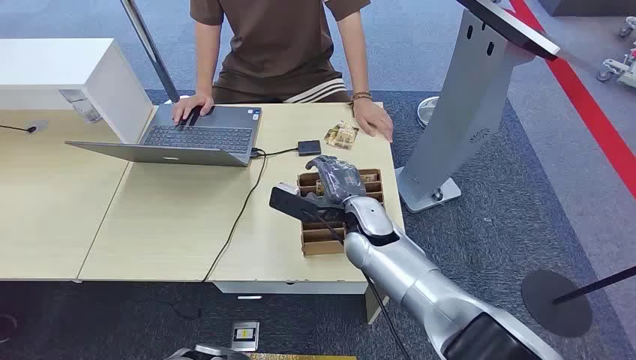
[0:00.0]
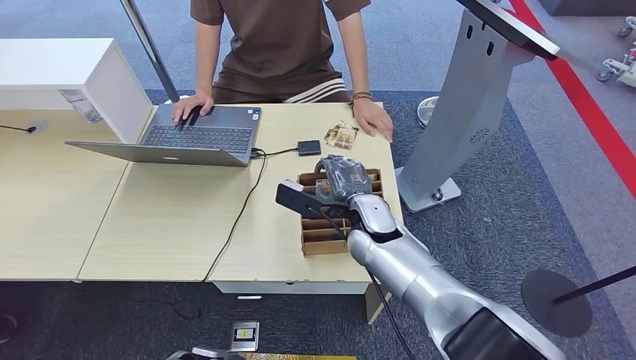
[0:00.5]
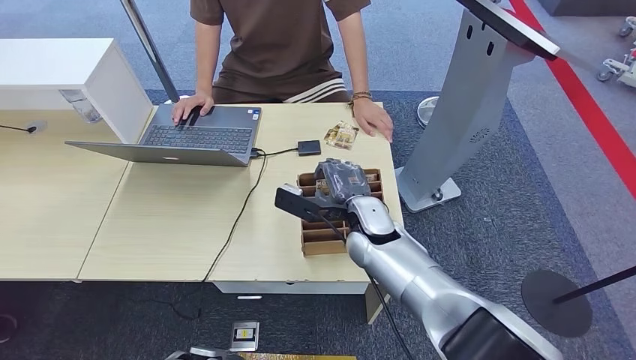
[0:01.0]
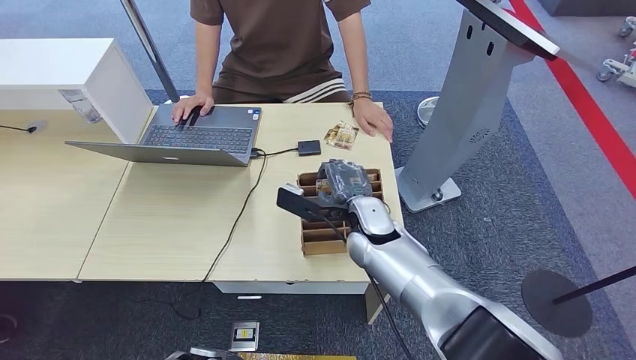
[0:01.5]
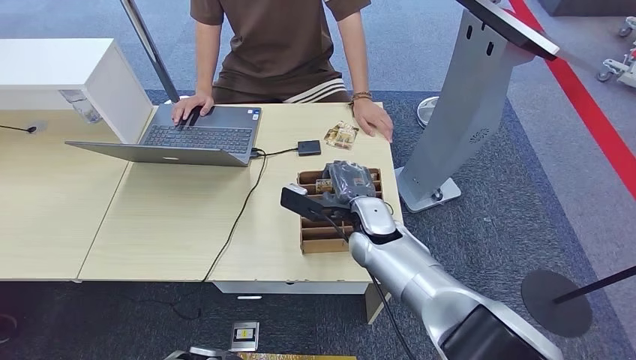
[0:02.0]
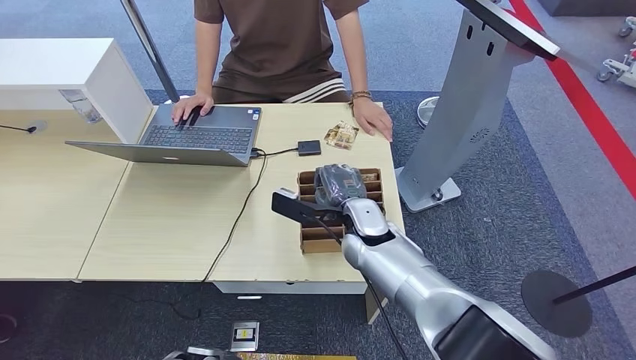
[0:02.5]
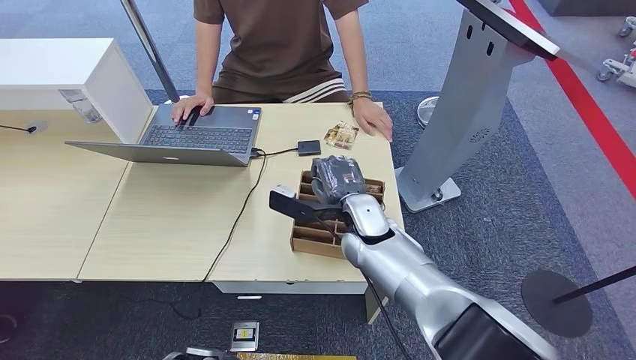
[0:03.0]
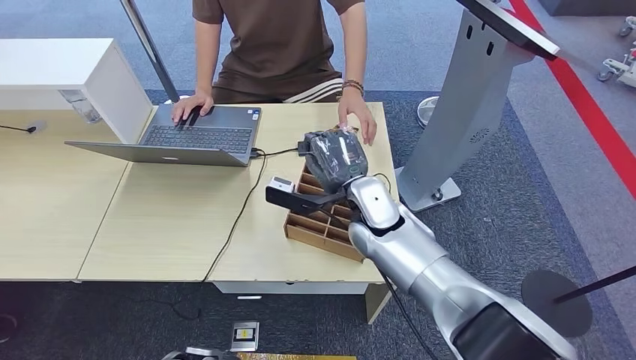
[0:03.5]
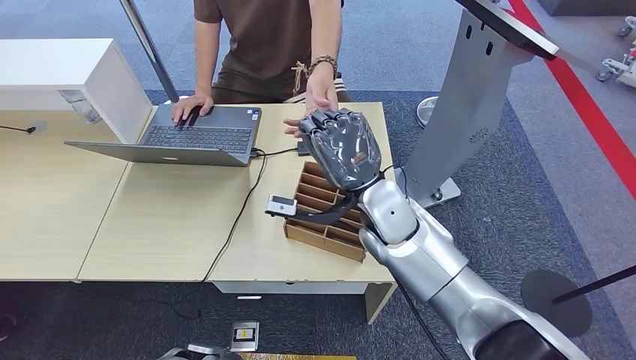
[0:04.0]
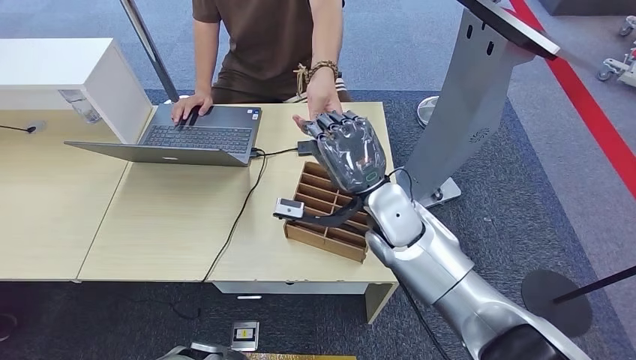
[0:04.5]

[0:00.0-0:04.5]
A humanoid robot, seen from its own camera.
Task of the whole recording: Pick up the card and hand it over to the target person.
Step, 0:00.0 to 0:03.0: Pick up the key card from the card box.
Step, 0:03.5 to 0:04.5: Hand the key card to the target.
0:02.0 to 0:04.5: The right hand heads upward, covering approximately 5 cm.

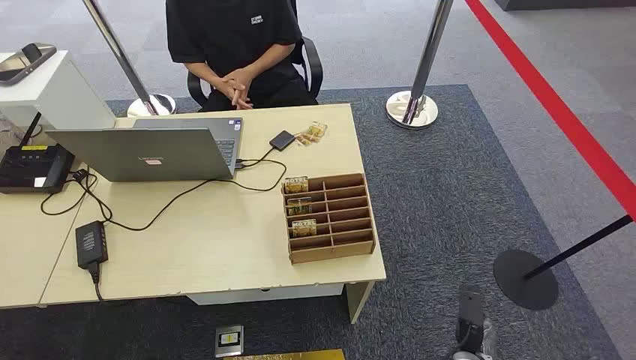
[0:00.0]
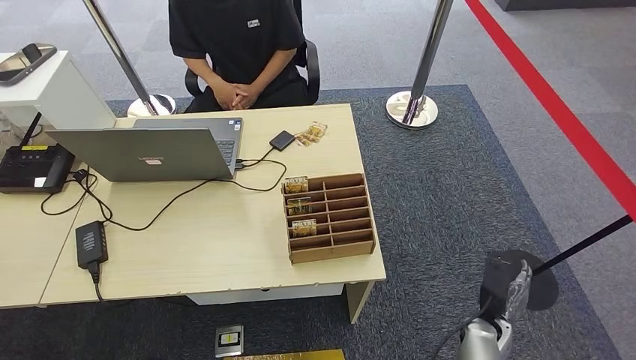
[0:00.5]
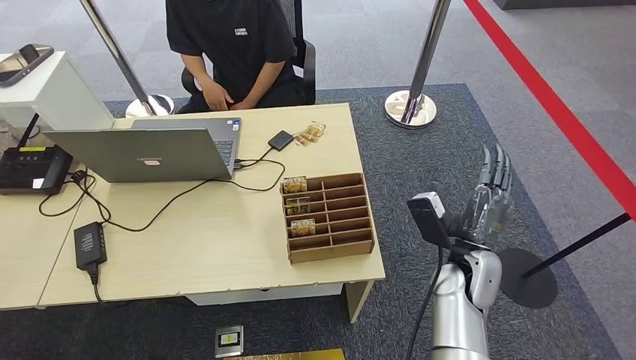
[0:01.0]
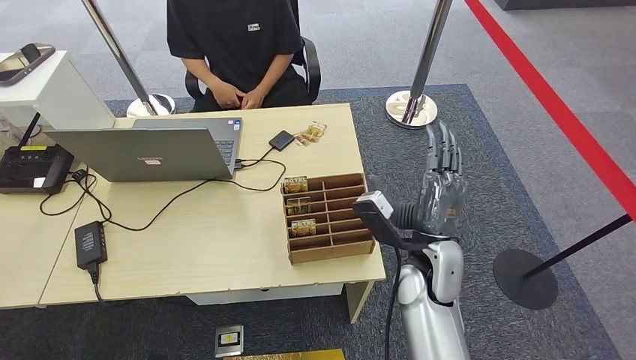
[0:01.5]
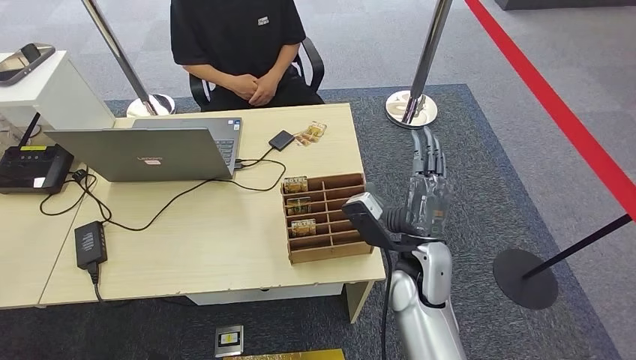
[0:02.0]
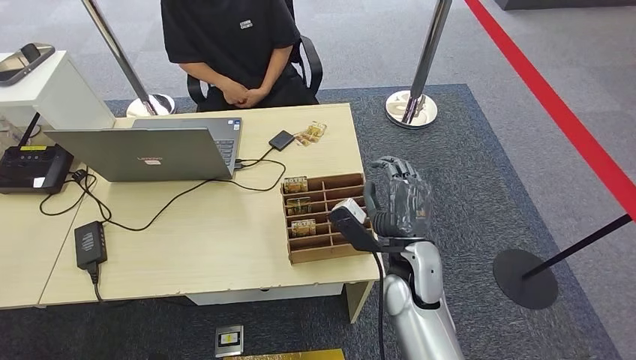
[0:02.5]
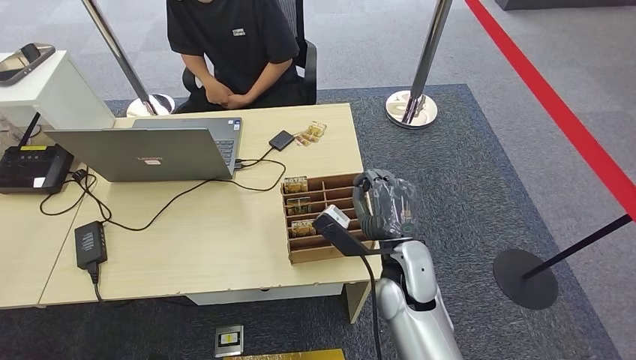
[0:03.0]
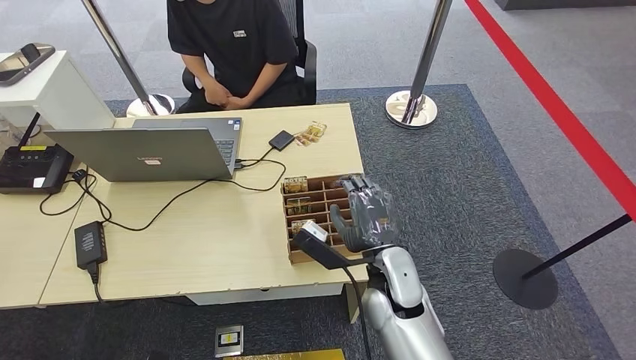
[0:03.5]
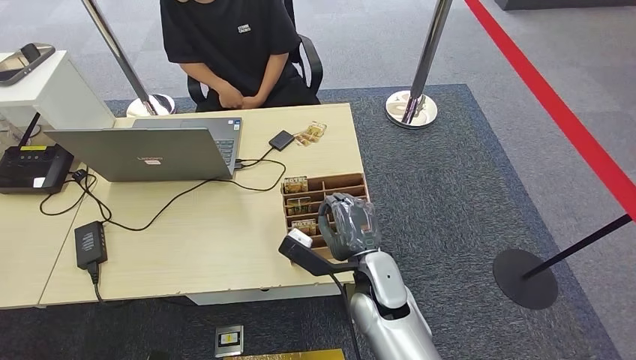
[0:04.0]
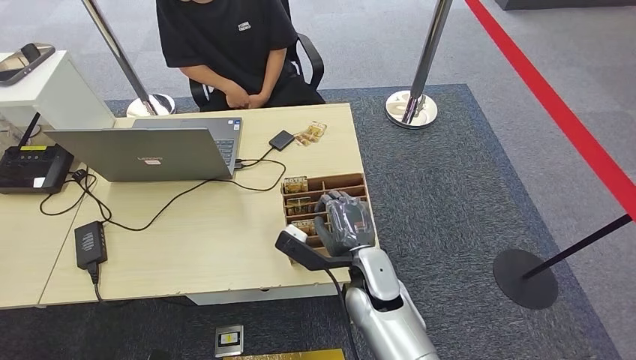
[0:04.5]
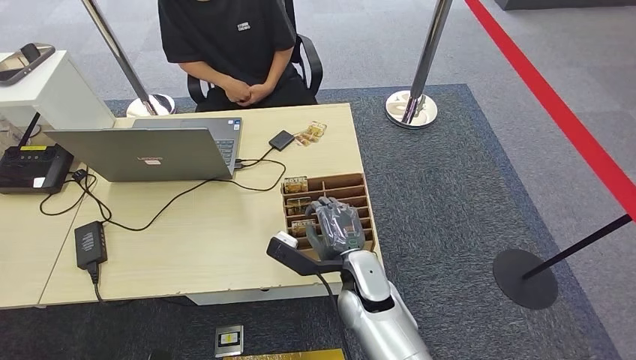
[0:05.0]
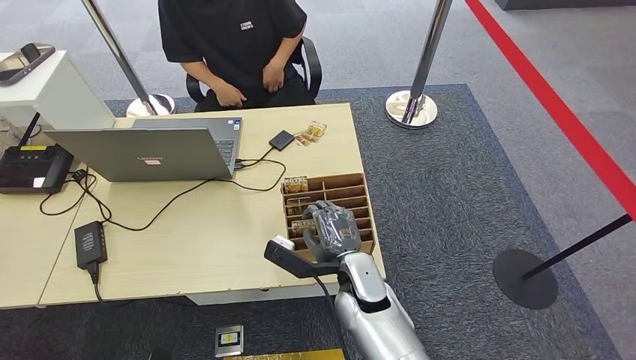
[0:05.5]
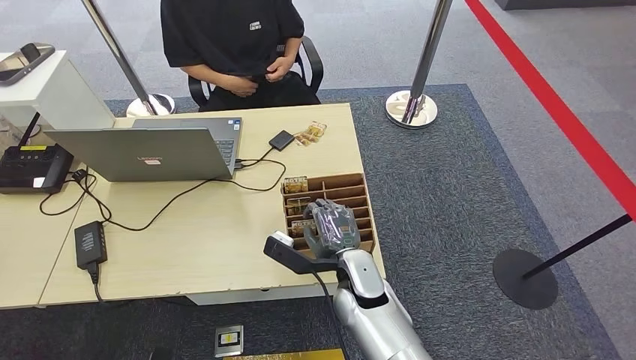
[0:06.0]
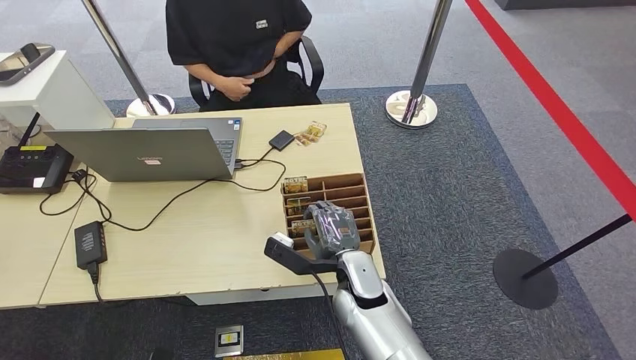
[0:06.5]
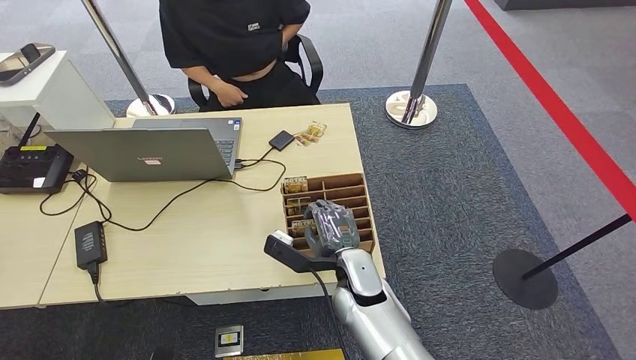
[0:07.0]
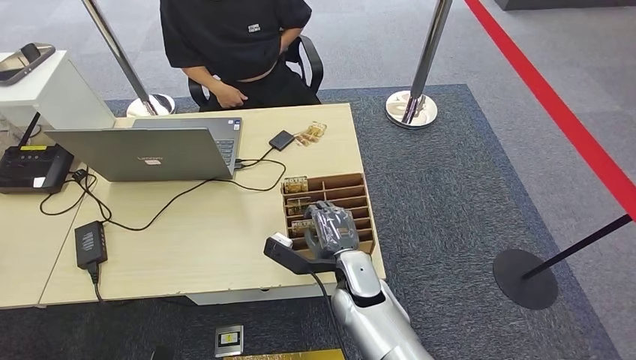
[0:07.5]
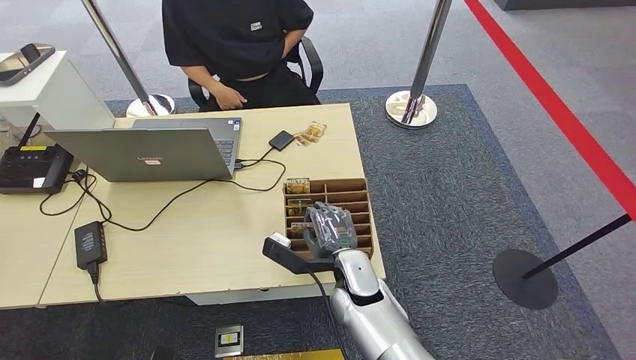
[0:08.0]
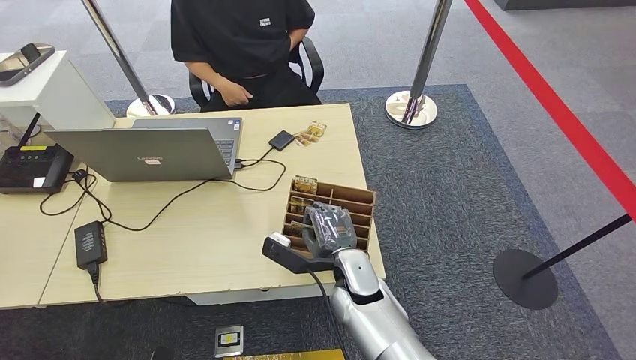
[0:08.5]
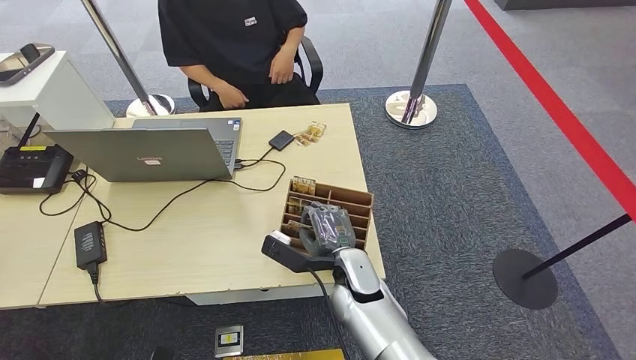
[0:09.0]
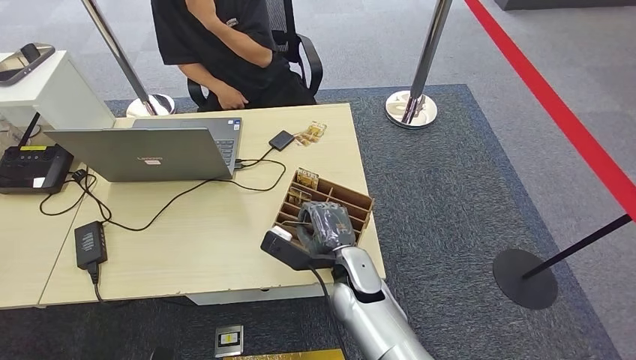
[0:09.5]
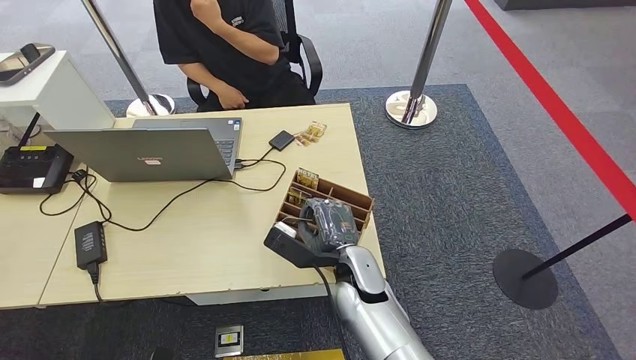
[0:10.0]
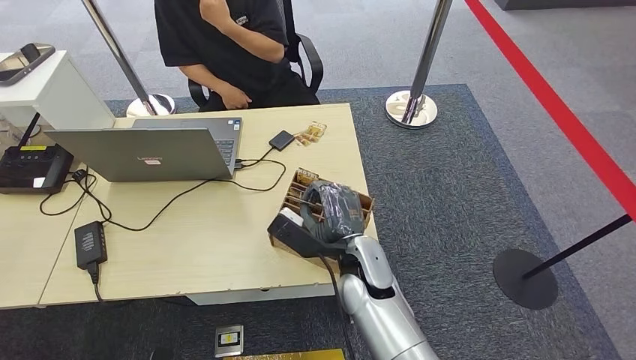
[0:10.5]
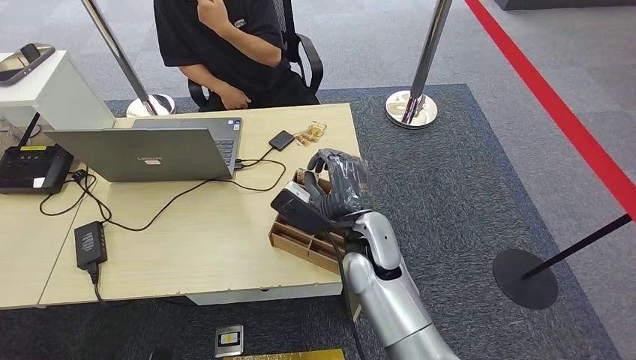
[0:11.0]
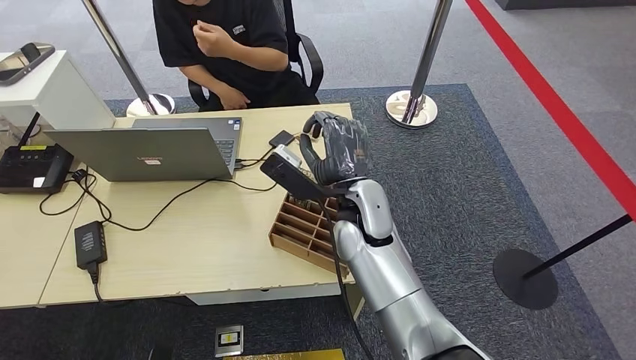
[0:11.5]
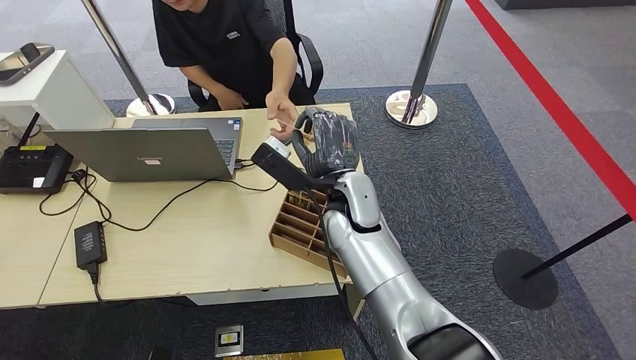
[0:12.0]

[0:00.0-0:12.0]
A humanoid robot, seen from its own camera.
Task of the whole recording: Pick up the card and hand it over to the target person.
Step, 0:00.0 to 0:11.5: Pick up the key card from the card box.
0:02.0 to 0:04.0: The right hand shifts roughly 5 cm to the left.
0:04.0 to 0:10.0: The hands make only small movements.
0:10.0 to 0:12.0: The right hand is displaced upward and forward by roughly 15 cm.
